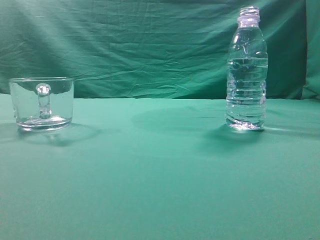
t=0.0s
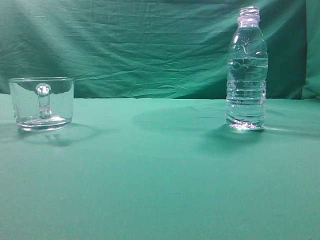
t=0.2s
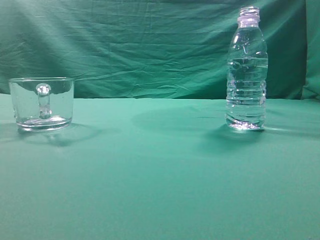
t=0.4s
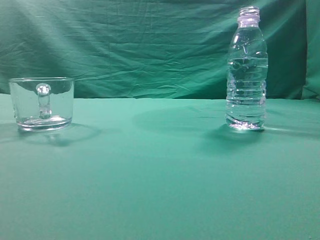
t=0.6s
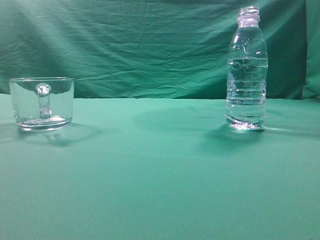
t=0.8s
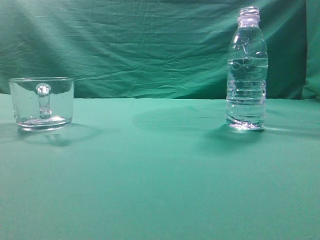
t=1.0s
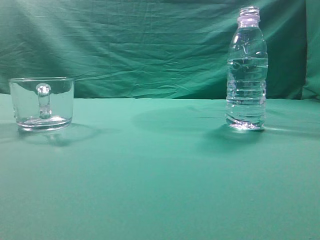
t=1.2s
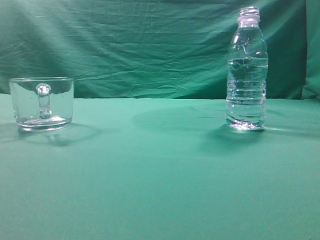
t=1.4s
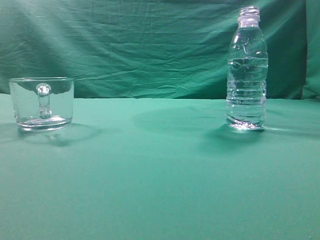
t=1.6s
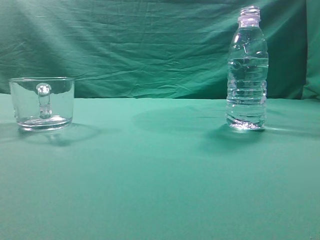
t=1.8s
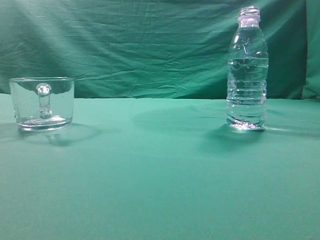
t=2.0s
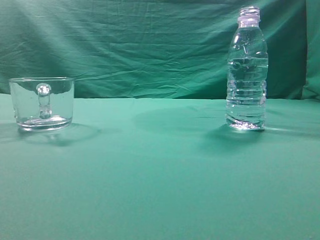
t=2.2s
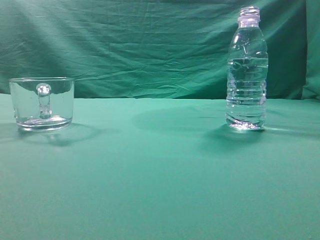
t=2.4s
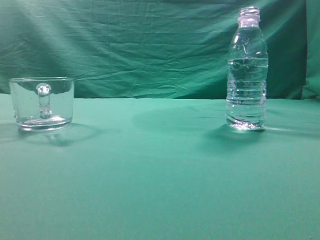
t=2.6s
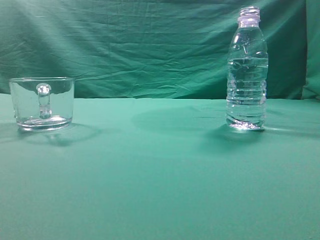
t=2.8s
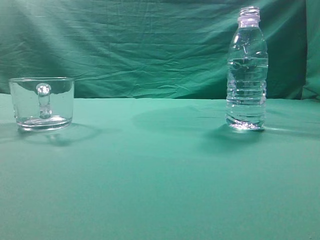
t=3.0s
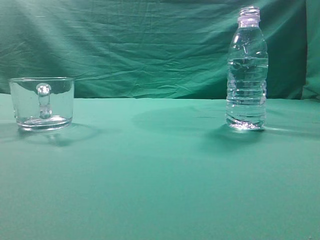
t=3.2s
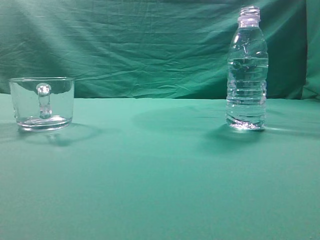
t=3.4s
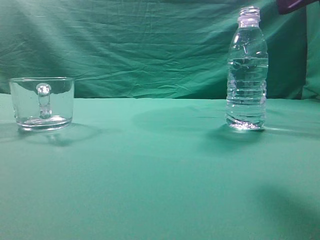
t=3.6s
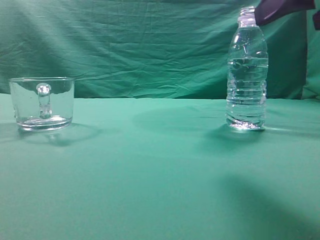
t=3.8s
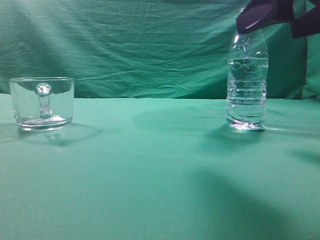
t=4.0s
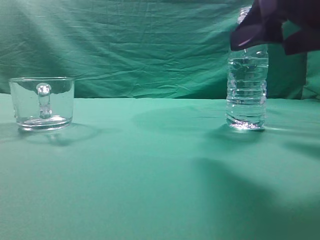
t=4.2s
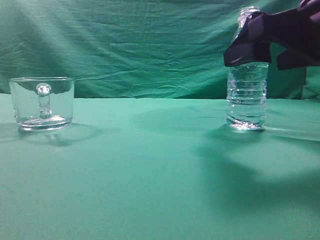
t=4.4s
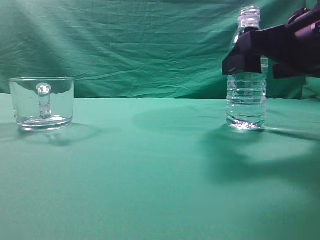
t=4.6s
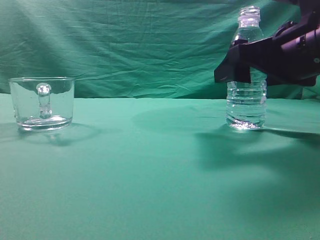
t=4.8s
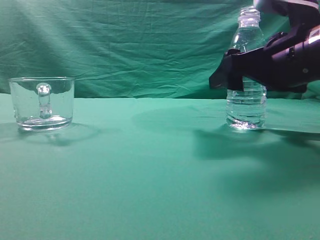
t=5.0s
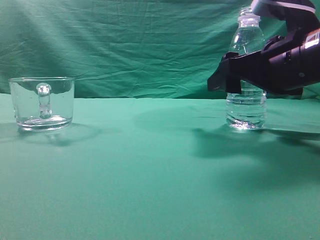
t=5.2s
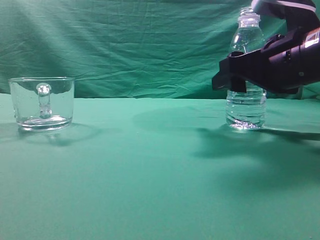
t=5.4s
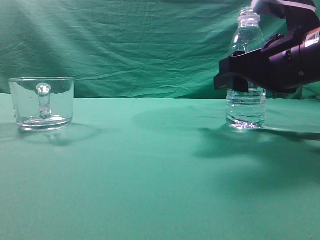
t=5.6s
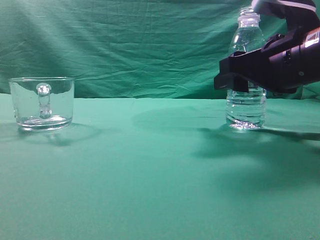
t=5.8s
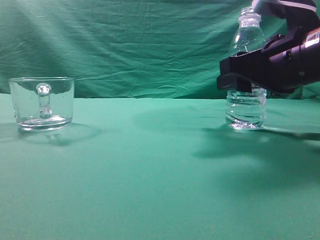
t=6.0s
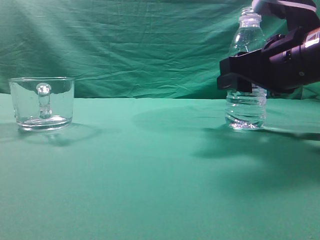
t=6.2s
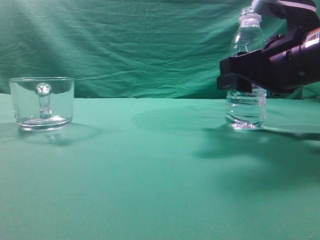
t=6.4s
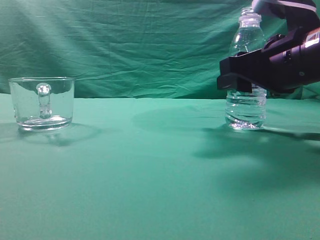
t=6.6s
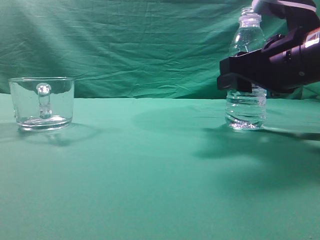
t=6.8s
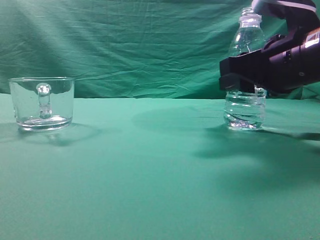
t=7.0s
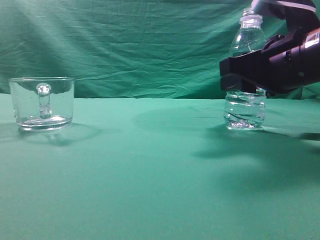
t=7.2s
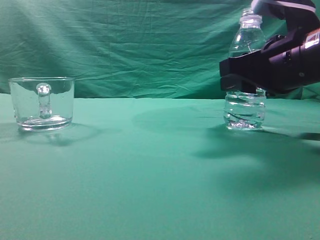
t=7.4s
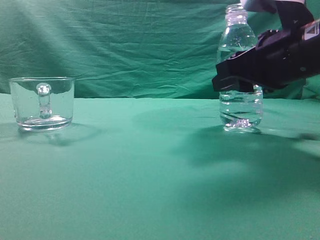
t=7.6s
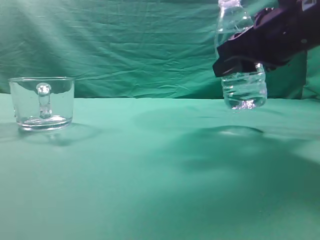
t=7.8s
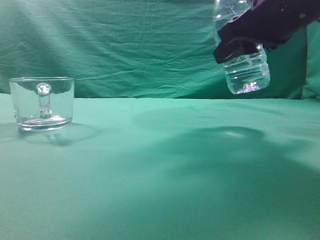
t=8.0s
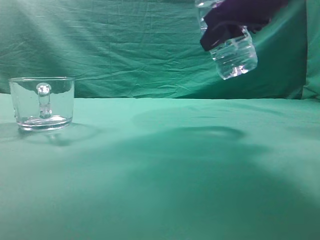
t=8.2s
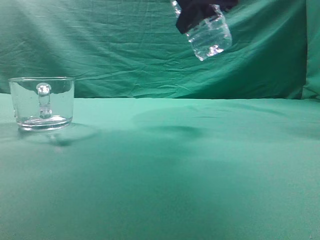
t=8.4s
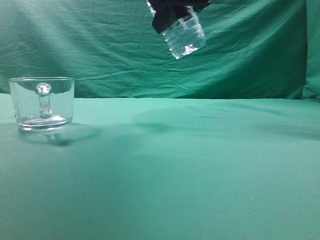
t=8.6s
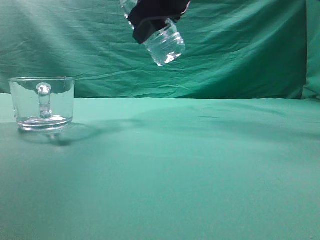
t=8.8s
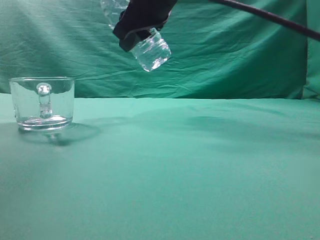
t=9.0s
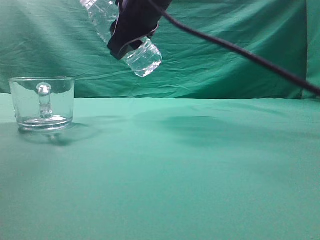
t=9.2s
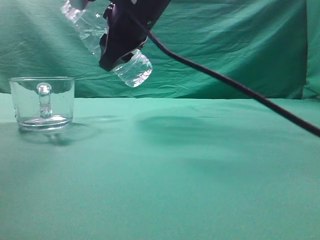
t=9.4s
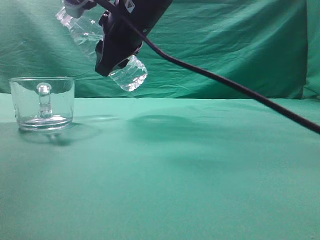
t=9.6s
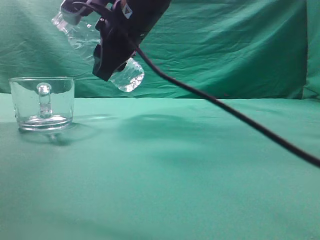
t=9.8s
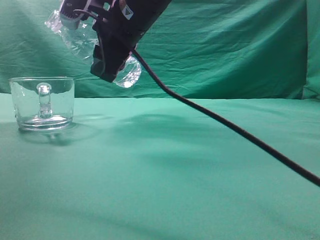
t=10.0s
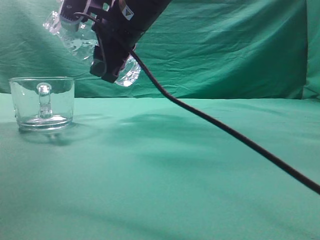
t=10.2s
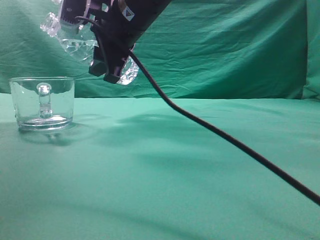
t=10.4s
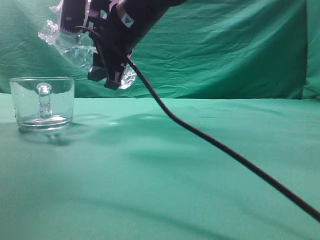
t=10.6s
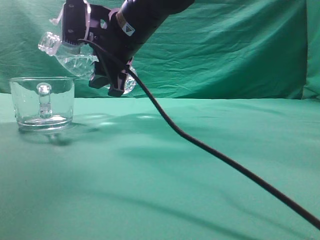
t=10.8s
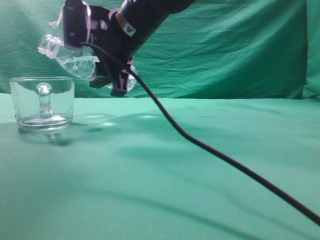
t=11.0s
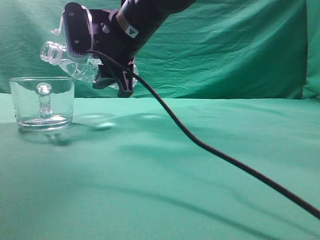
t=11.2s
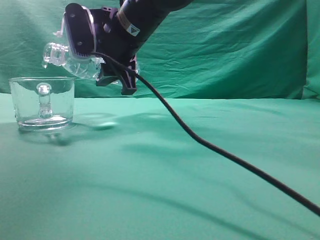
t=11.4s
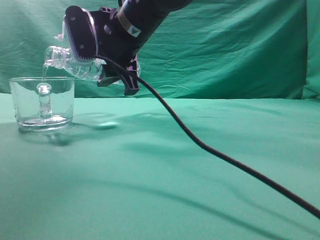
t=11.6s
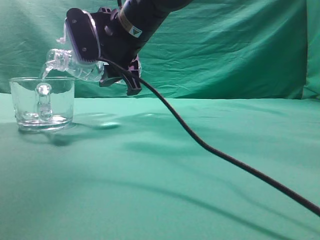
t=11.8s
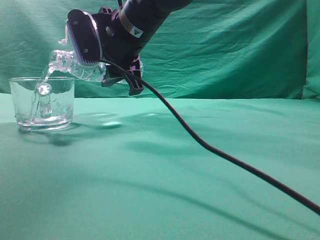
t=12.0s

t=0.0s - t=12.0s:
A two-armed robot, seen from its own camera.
Task of the whole recording: pick up the water bottle and pour the water in it into the glass.
Step, t=0.0s - t=7.8s: Grasp the mineral water bottle.
t=3.0s - t=4.4s: The right gripper is displaced forward, downward and to the left by roughly 15 cm, and opens its fingers.
t=4.4s - t=6.0s: The right gripper goes approximately 5 cm forward.
t=6.0s - t=7.6s: There are only small adjustments of the grippers.
t=7.6s - t=9.0s: The right gripper is displaced to the left, upward and forward by roughly 20 cm.
t=9.0s - t=10.4s: The right gripper shifts by some 5 cm.

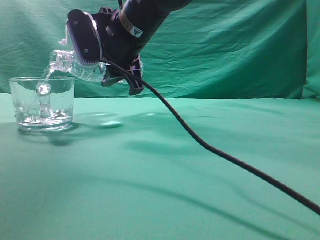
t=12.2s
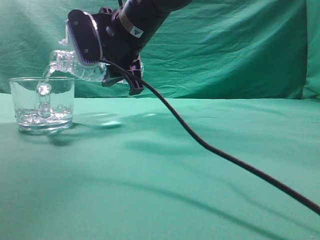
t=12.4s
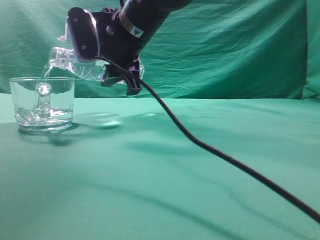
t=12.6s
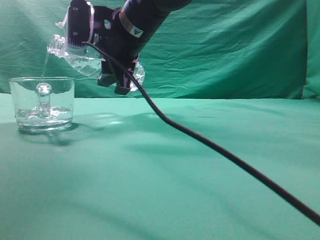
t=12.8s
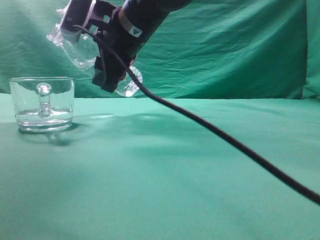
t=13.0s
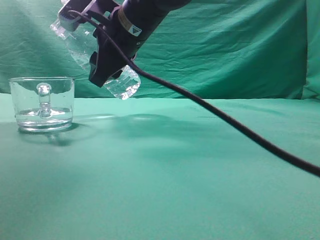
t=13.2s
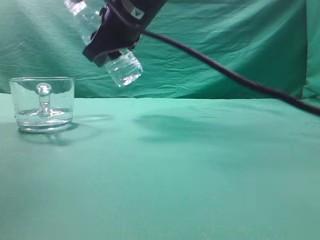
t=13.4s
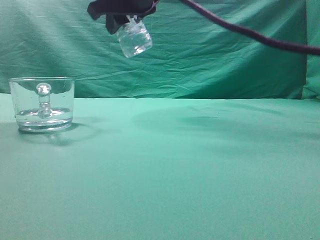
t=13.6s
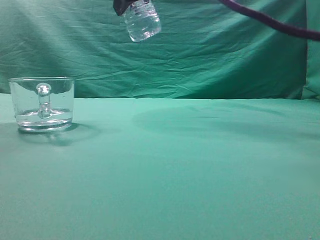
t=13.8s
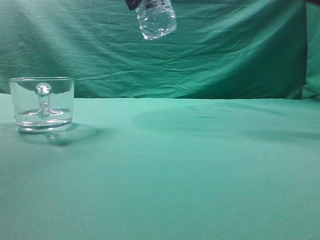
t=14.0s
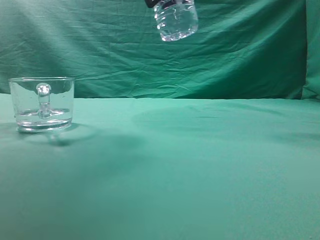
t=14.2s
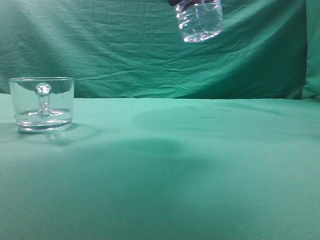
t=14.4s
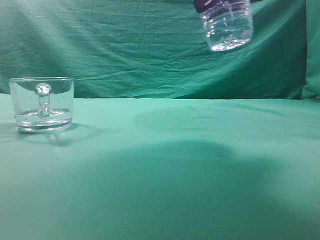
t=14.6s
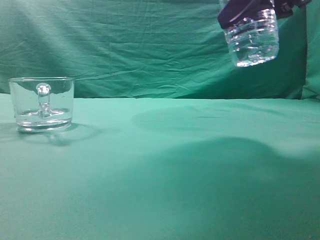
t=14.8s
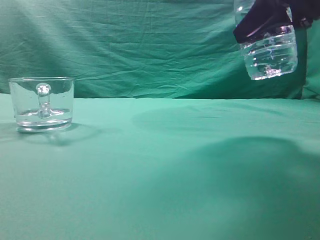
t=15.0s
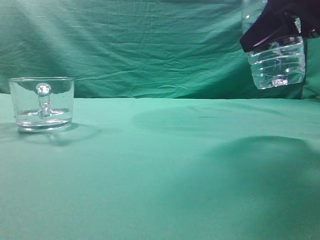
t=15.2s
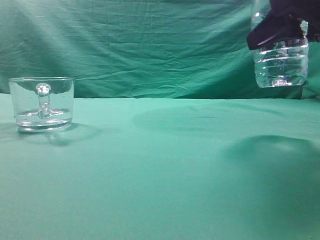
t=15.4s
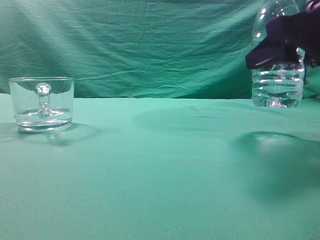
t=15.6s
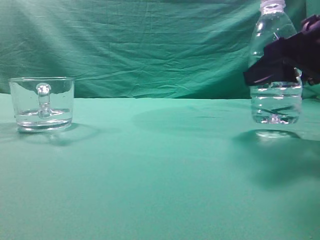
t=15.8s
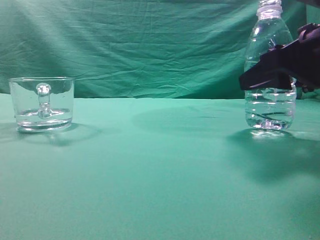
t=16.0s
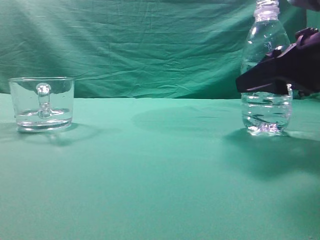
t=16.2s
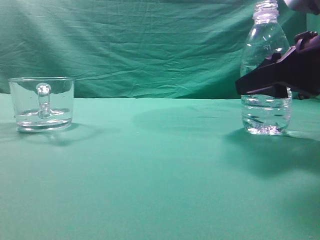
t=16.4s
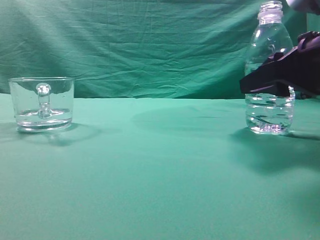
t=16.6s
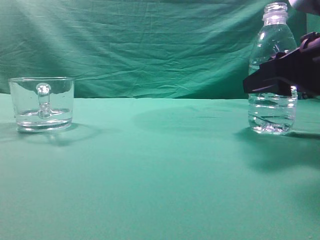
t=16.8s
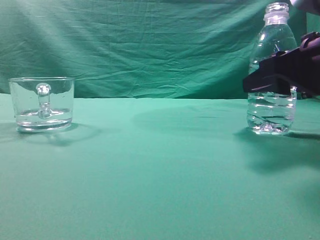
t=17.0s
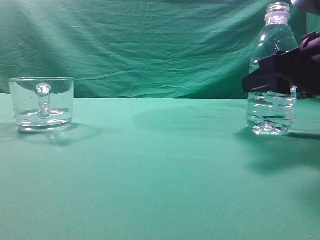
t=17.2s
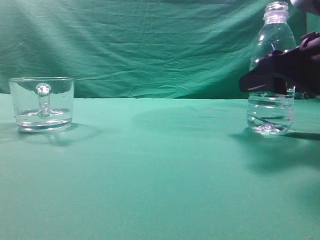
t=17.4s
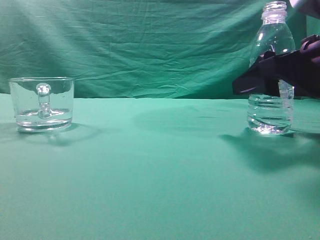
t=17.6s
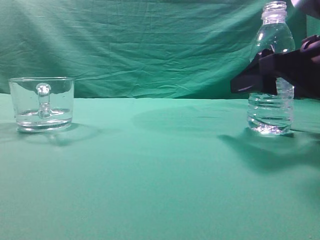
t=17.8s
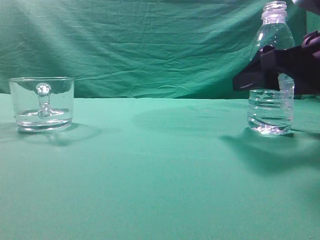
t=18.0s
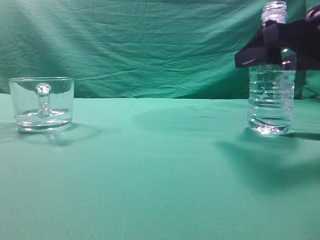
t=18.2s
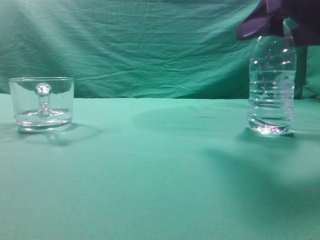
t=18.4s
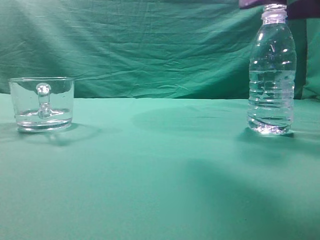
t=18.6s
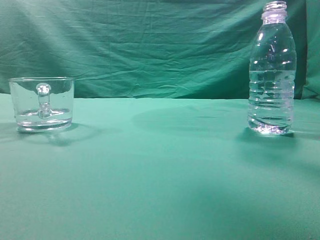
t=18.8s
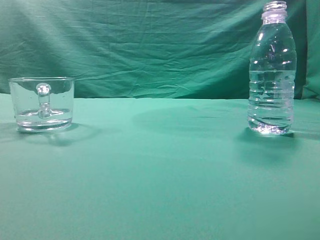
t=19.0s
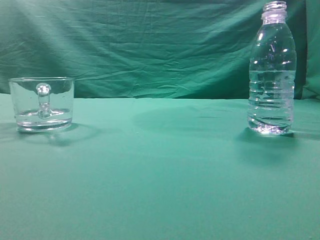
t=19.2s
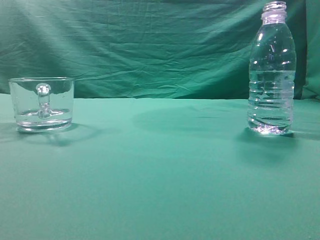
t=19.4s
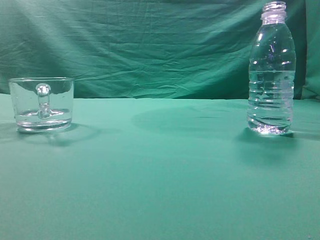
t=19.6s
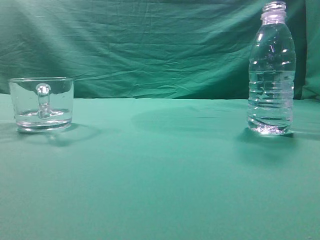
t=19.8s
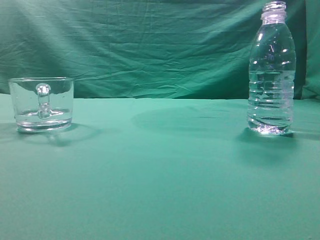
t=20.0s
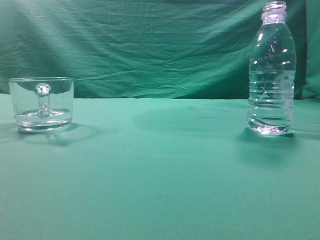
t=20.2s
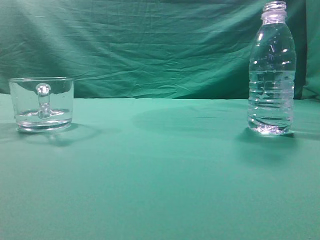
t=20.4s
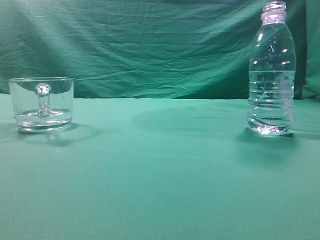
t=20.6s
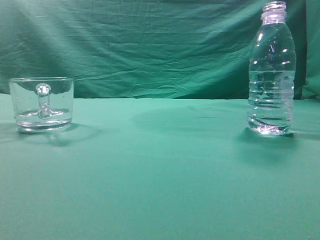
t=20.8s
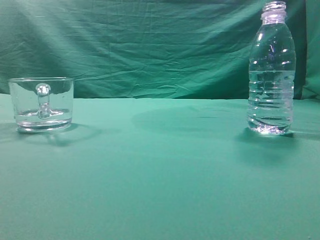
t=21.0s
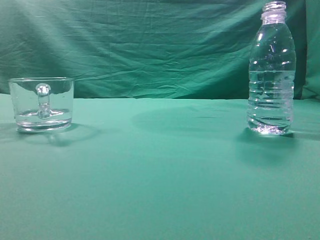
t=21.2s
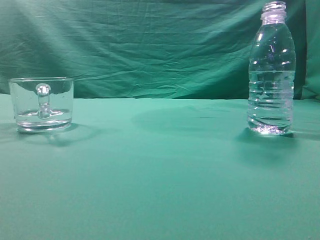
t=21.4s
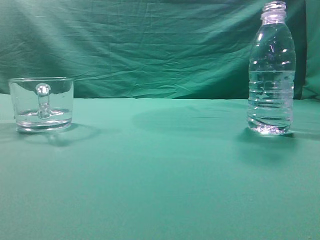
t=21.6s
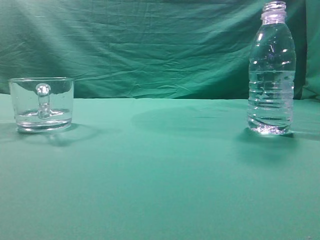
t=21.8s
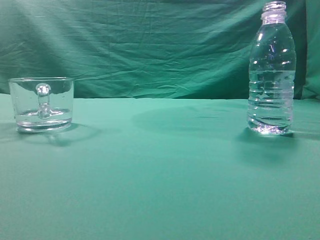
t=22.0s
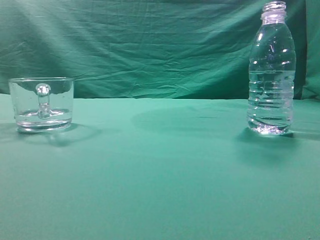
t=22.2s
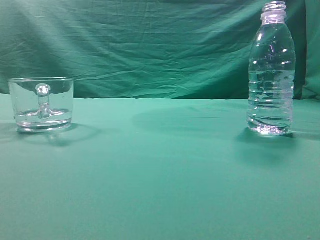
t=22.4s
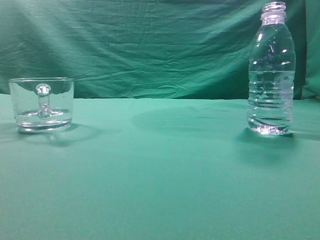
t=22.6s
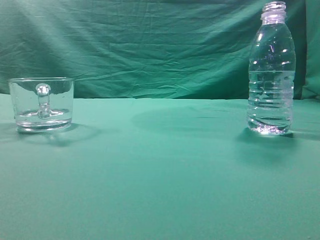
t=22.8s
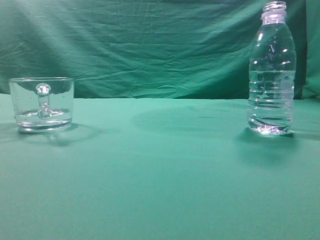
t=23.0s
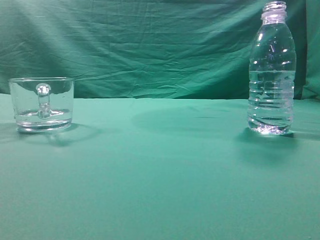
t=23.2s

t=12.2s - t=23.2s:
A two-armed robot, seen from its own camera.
Task of the whole recording: pick up the water bottle and pour the water in it into the glass.
t=12.2s - t=13.8s: The right gripper heads upward, covering some 10 cm.
t=13.8s - t=15.4s: The right gripper moves to the right, downward and backward, some 25 cm.
t=15.4s - t=17.0s: The right gripper is displaced downward by roughly 5 cm.
t=17.0s - t=18.4s: The right gripper is displaced upward by roughly 5 cm, and opens up.
t=18.4s - t=20.0s: The right gripper heads backward and upward, covering about 25 cm, and closes up.
